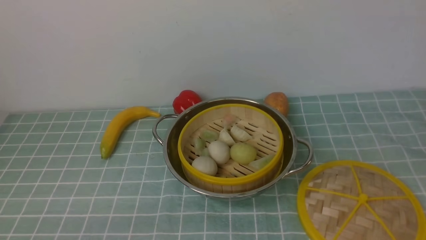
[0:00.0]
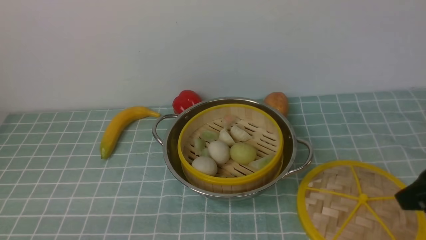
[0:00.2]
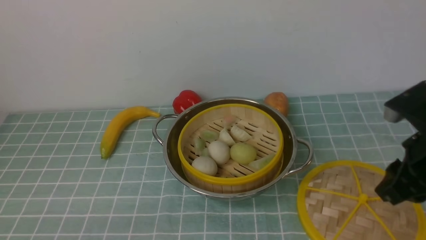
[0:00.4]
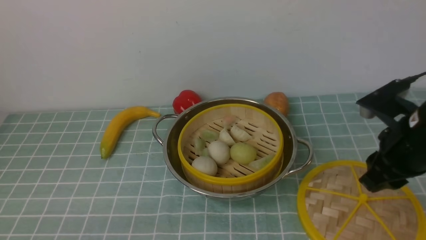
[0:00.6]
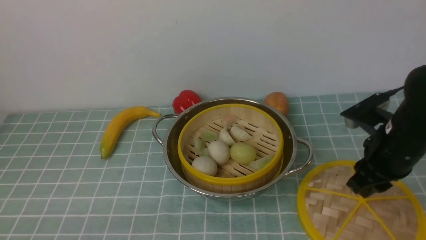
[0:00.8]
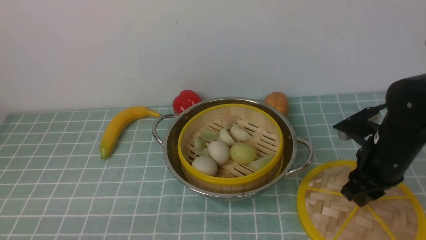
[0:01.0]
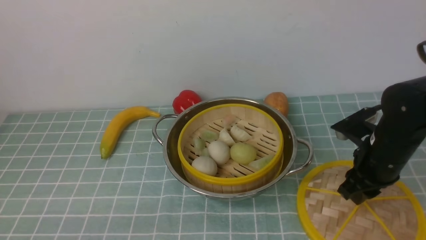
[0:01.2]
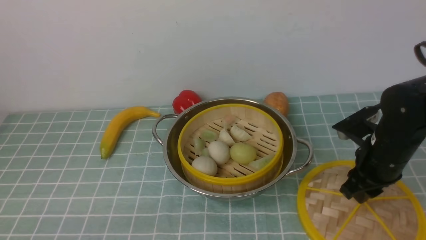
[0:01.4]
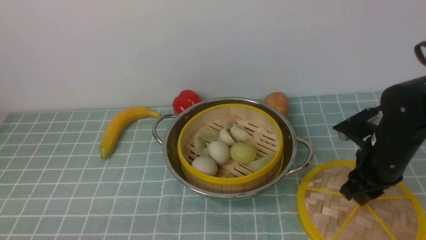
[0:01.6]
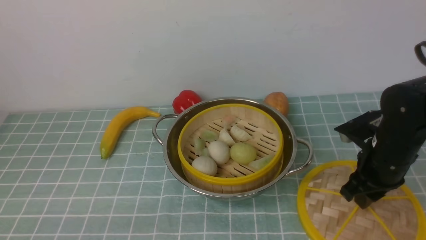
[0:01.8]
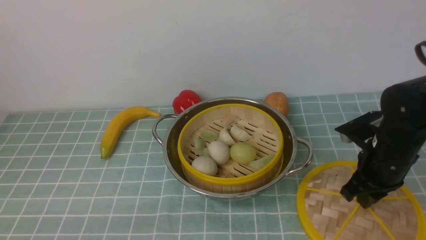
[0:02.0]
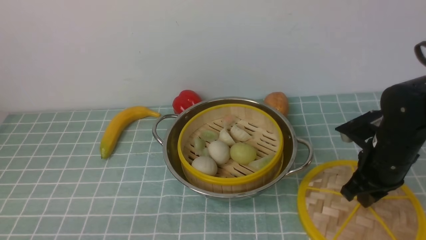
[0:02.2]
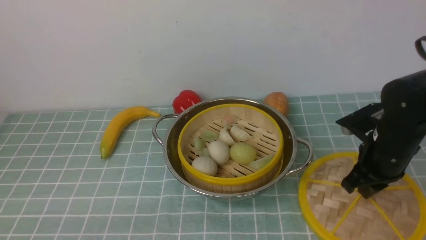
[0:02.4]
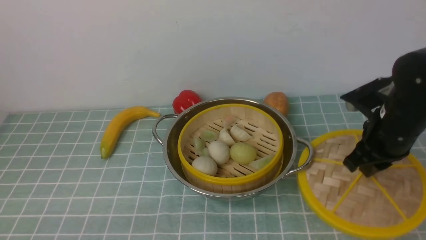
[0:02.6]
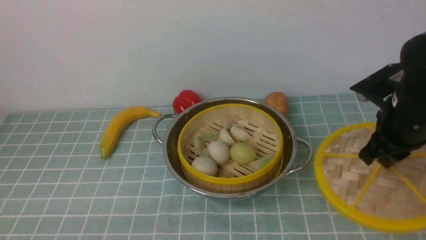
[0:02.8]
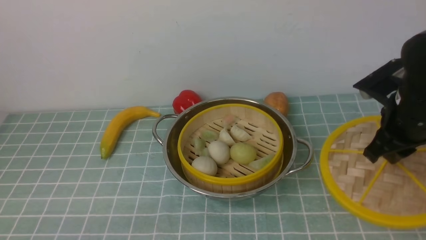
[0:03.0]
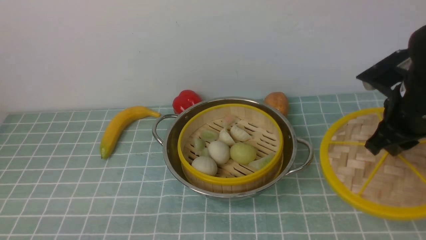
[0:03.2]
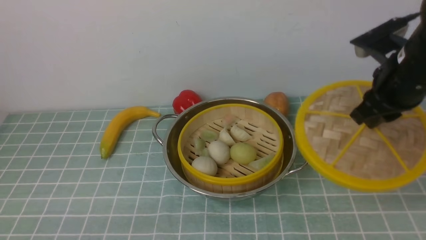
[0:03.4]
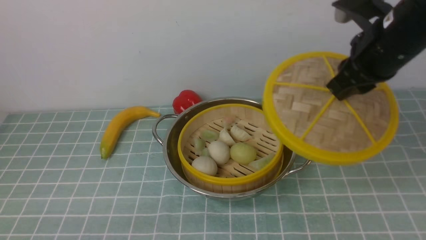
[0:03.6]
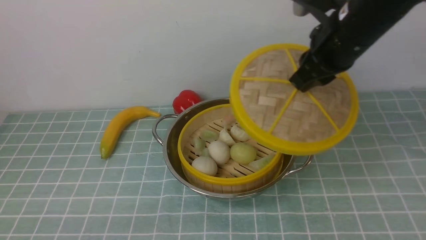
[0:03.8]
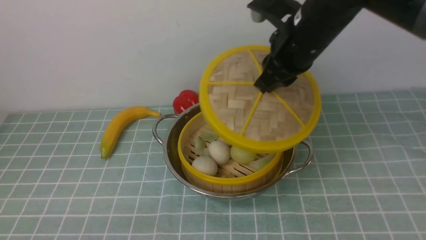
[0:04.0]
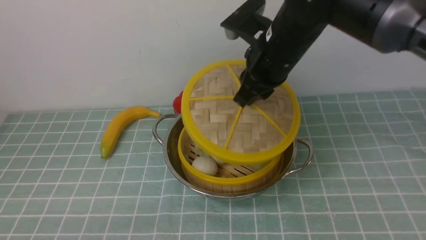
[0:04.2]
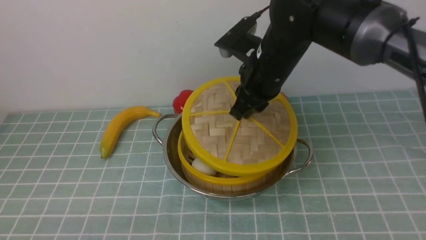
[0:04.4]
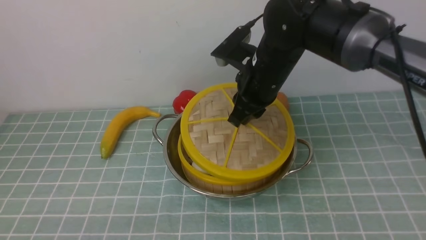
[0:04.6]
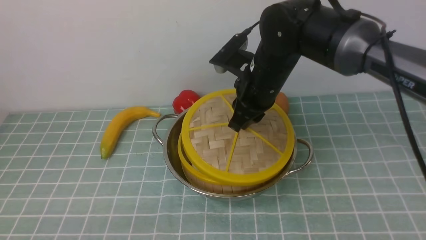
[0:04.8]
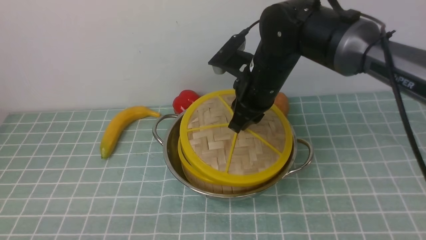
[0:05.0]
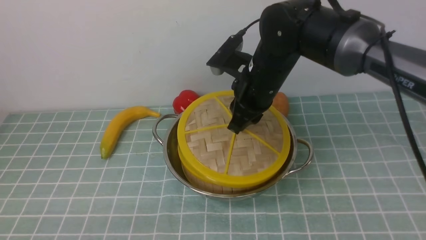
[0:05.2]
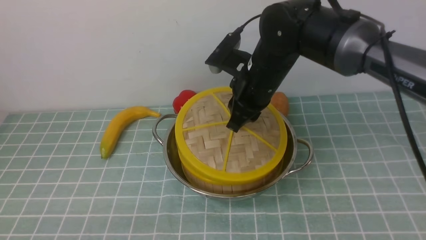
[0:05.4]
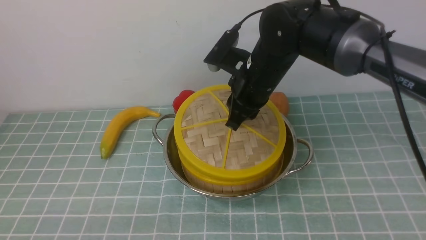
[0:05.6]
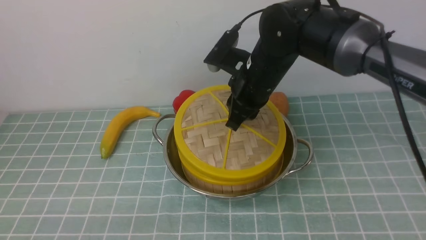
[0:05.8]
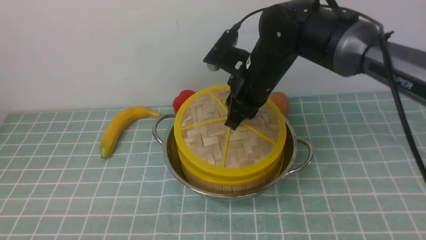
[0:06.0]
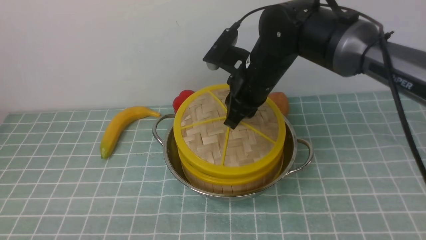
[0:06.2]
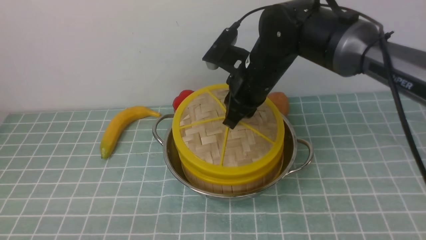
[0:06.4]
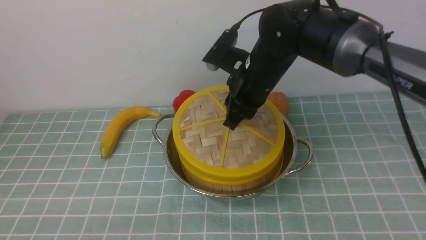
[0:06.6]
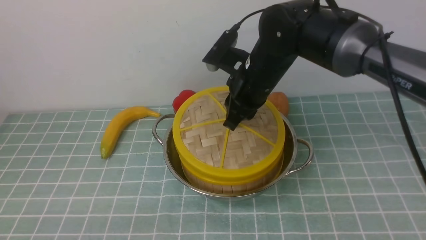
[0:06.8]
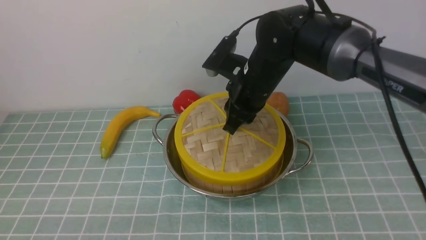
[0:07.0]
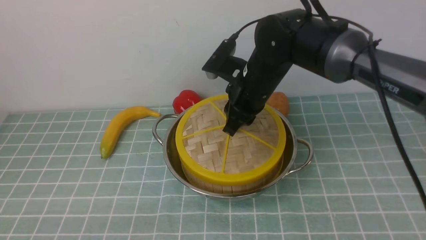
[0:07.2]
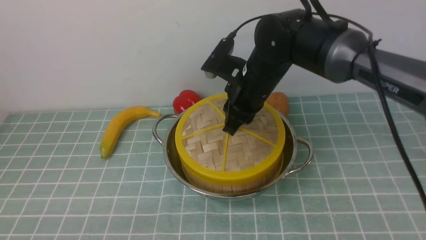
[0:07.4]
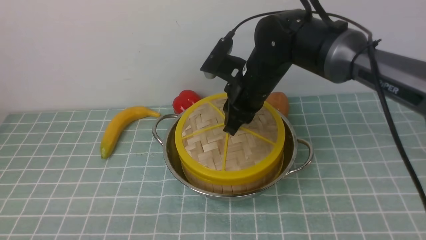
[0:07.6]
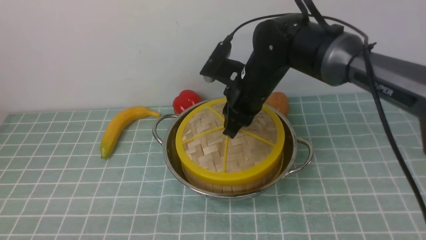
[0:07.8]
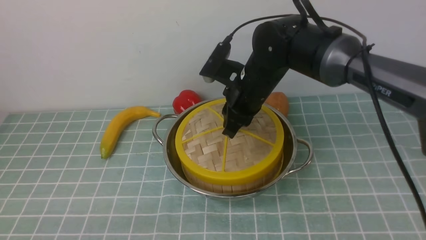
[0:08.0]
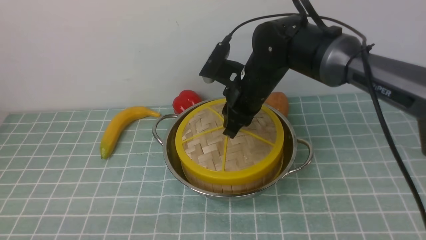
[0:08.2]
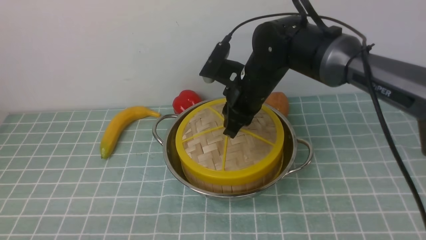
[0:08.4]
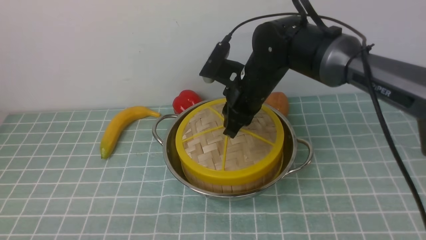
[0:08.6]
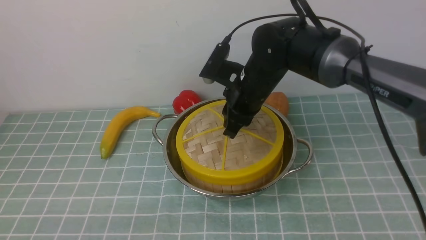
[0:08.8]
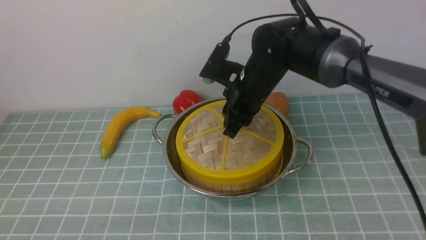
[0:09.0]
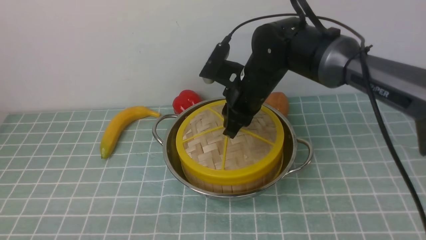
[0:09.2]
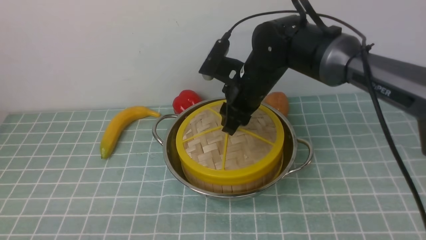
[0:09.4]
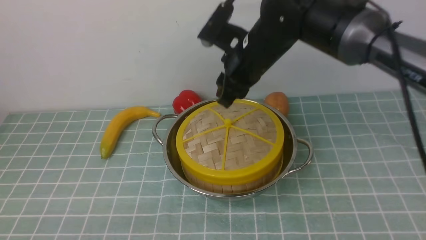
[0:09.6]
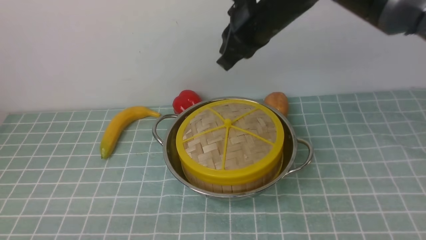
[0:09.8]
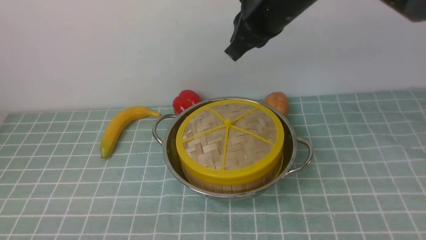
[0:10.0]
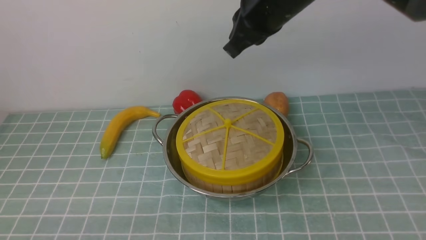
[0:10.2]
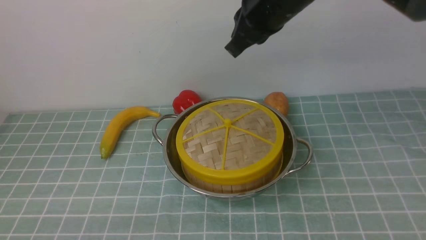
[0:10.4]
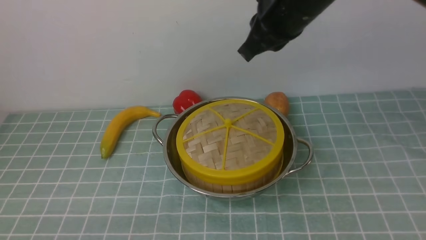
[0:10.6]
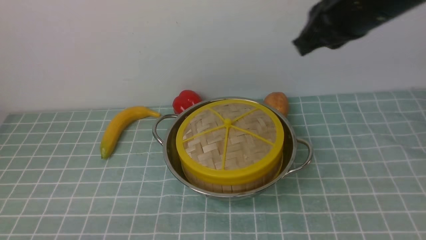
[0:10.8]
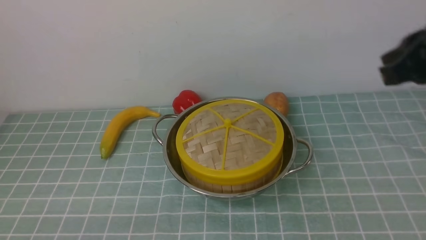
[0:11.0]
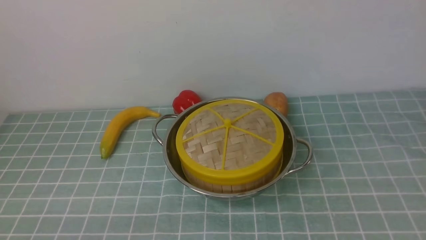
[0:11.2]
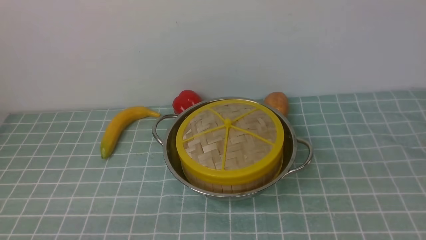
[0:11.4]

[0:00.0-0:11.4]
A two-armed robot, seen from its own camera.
Task of the whole recording: place the steamer in the pot on the blue tablecloth, and put the lid on the steamer.
Step, 0:00.0 to 0:02.8: use the right arm to lift the lid of the steamer.
Step, 0:03.0 to 0:09.8: use the right arm to place the steamer lid on the steamer.
0:00.0 to 0:01.4: The right gripper moves forward and downward, some 20 cm.
0:01.4 to 0:02.8: The right gripper moves upward, some 5 cm, and closes its fingers.
0:02.8 to 0:04.2: The right gripper moves to the left, some 15 cm.
0:04.2 to 0:05.6: The right gripper changes place by roughly 5 cm.
0:05.6 to 0:07.2: The grippers move only a little.
0:07.2 to 0:08.6: Both grippers stay put.
0:08.6 to 0:10.0: The right gripper moves upward, roughly 15 cm, and closes its fingers.
0:10.0 to 0:11.4: The right gripper is displaced backward and to the right by some 35 cm, and opens its fingers.

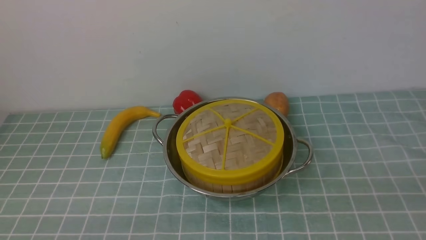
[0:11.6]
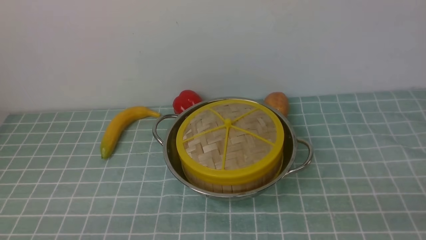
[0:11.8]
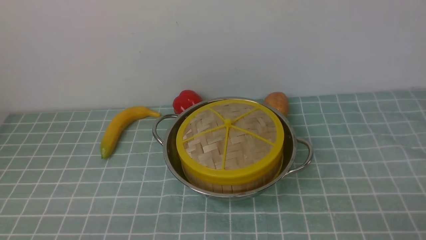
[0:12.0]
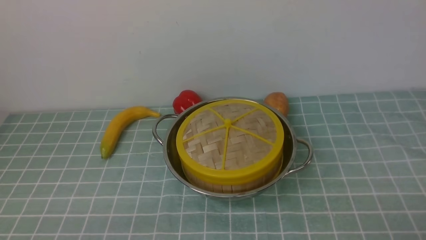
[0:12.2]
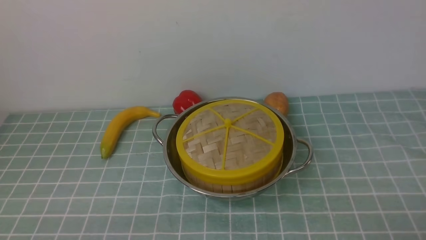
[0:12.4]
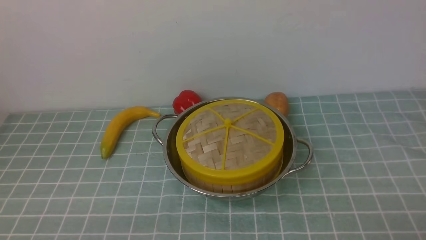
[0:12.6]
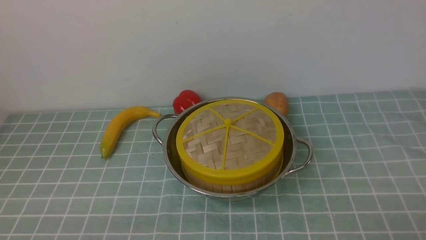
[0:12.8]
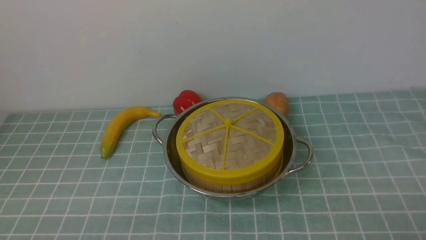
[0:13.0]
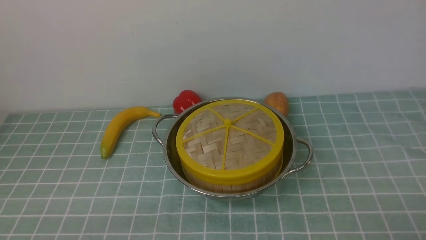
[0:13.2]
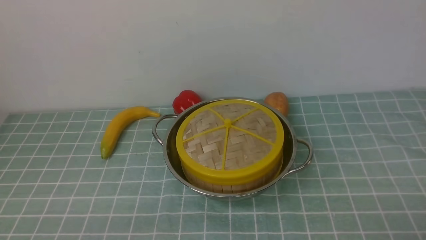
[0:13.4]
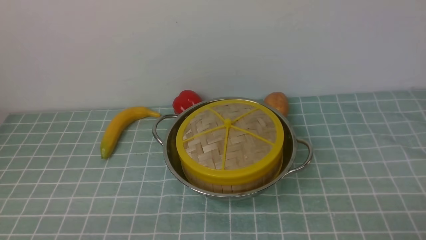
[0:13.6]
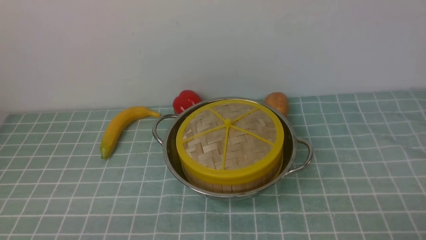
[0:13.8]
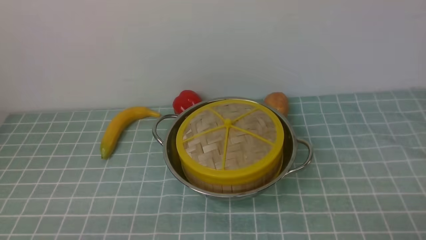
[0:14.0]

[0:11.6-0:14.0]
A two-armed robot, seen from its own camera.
Task of the whole recording: place the steamer in the pot on the blue tablecloth, and put the lid on the steamer.
0:12.8 to 0:14.0: The two grippers keep their place.
